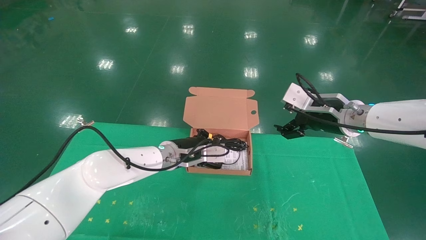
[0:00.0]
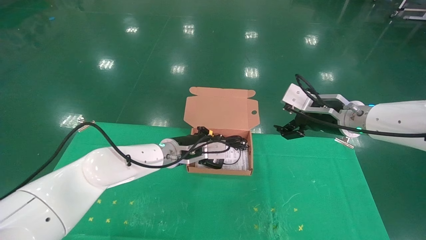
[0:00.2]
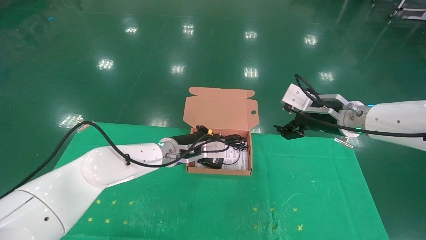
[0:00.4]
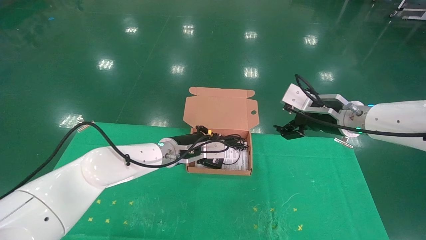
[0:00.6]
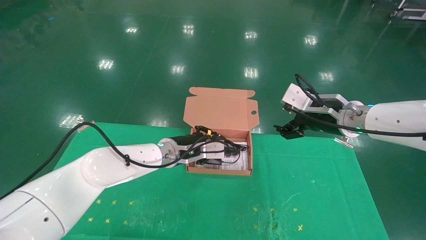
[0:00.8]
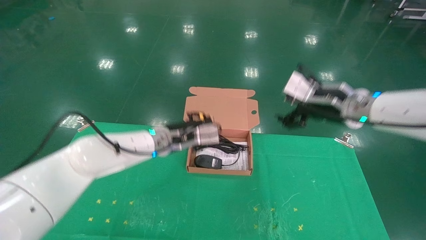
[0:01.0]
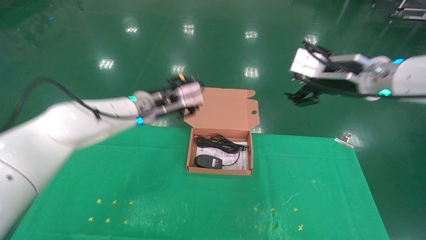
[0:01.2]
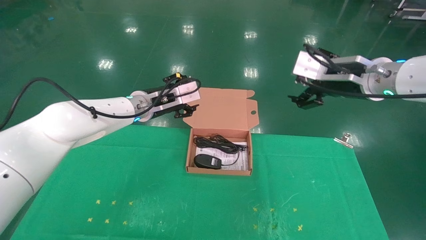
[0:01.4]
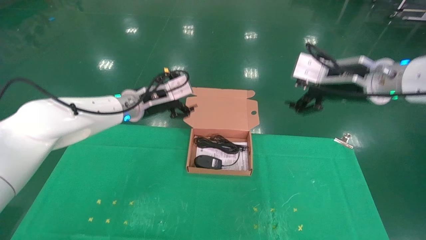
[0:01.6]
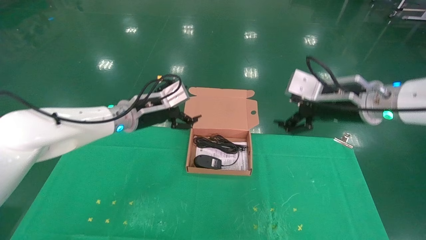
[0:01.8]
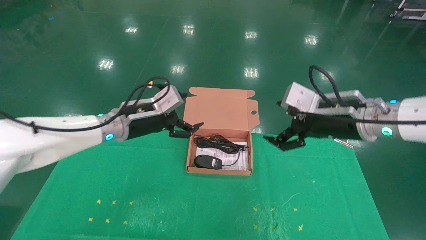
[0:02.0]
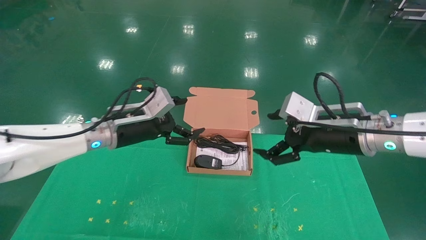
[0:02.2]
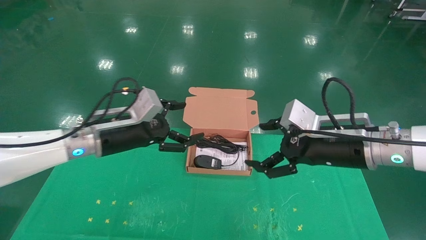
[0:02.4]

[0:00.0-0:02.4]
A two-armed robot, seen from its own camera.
Task of the whole recording: grasp data cable left put into box grasp mouse right put into box.
0:00.0 to 0:01.2: Both grippers move upward, roughly 10 cm. The left gripper opens.
0:01.2 to 0:02.4: The right gripper shifts about 10 cm downward and backward, while the left gripper shifts some 10 cm backward and to the left, and opens up.
